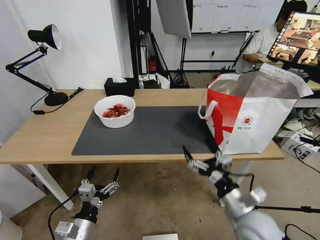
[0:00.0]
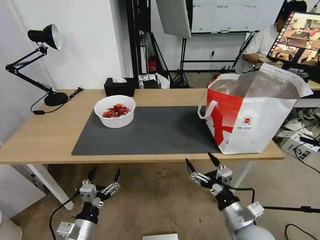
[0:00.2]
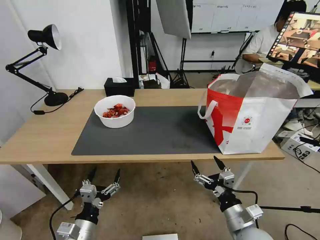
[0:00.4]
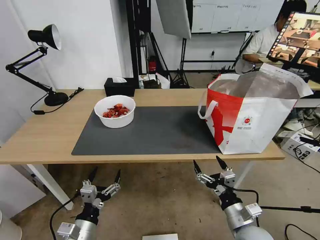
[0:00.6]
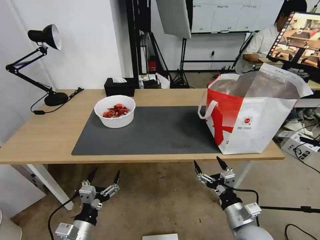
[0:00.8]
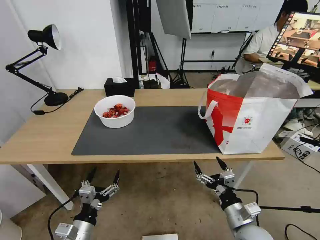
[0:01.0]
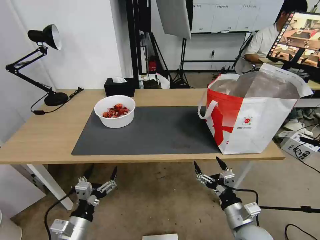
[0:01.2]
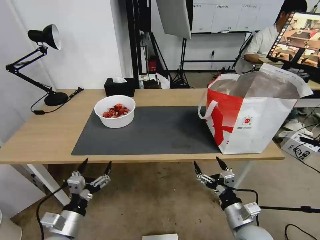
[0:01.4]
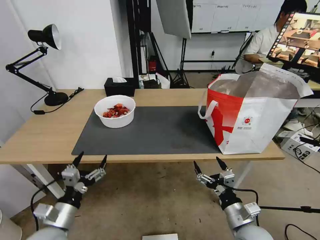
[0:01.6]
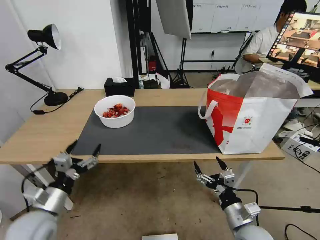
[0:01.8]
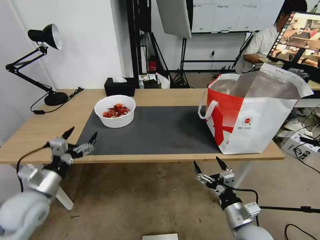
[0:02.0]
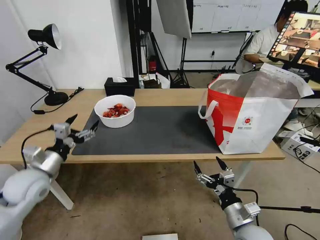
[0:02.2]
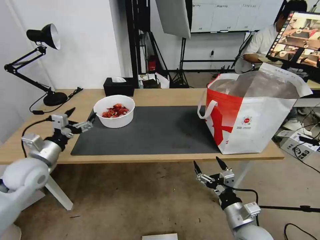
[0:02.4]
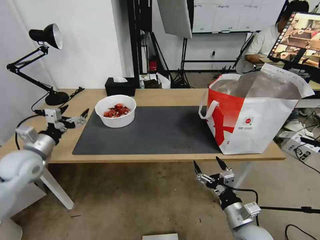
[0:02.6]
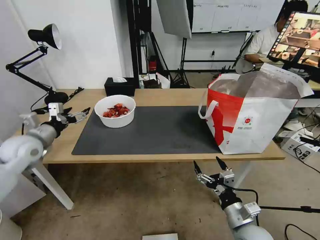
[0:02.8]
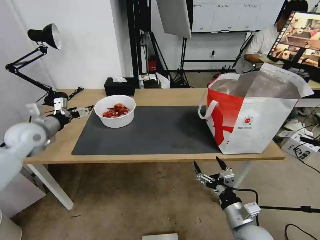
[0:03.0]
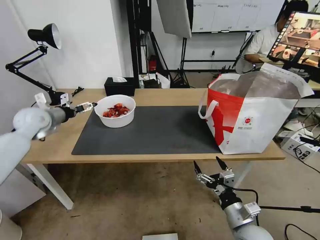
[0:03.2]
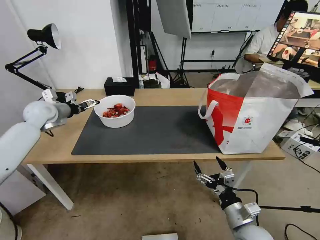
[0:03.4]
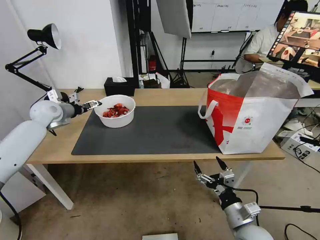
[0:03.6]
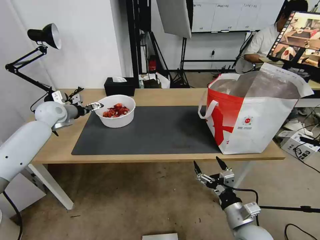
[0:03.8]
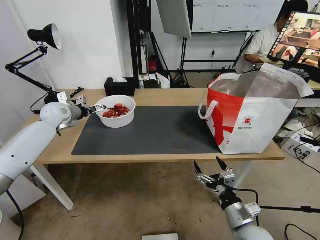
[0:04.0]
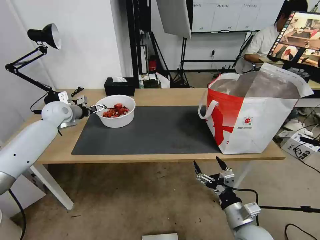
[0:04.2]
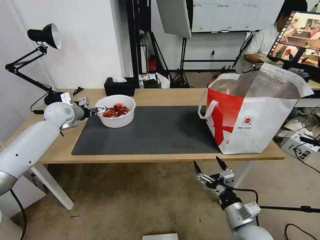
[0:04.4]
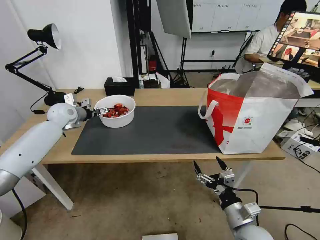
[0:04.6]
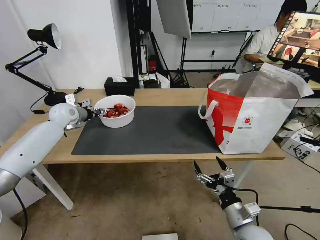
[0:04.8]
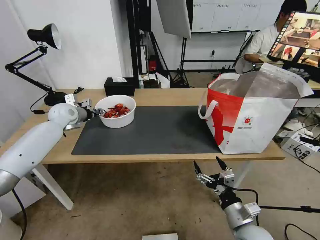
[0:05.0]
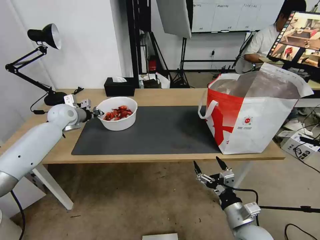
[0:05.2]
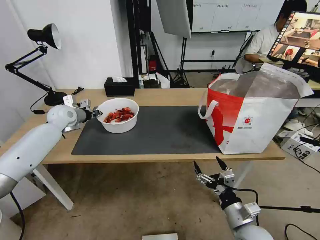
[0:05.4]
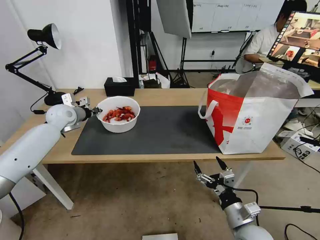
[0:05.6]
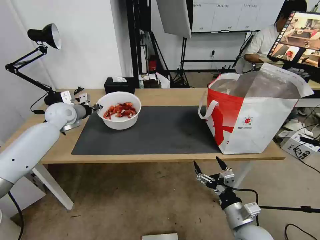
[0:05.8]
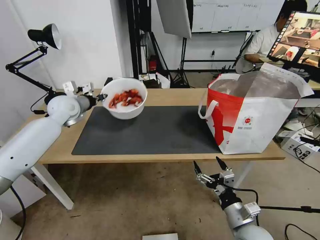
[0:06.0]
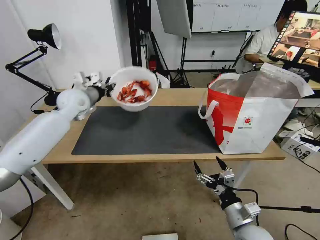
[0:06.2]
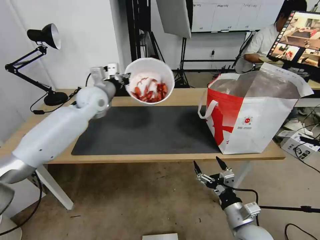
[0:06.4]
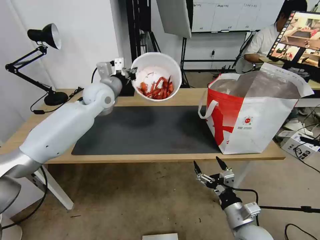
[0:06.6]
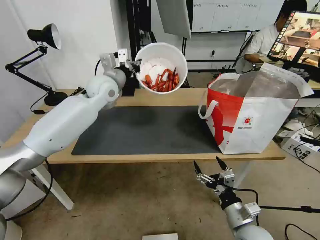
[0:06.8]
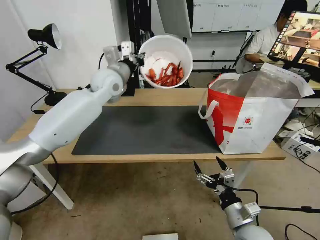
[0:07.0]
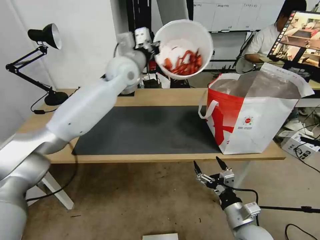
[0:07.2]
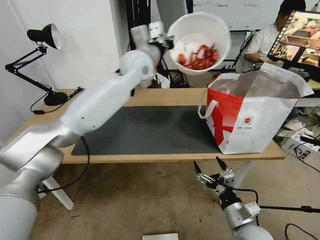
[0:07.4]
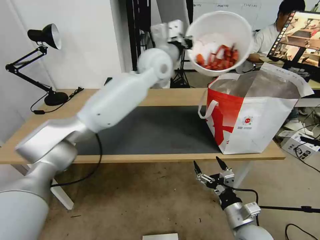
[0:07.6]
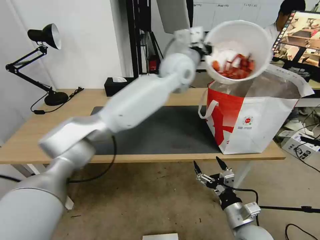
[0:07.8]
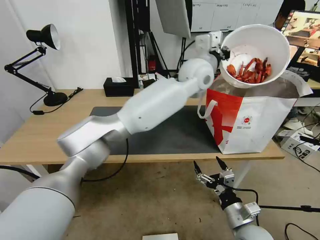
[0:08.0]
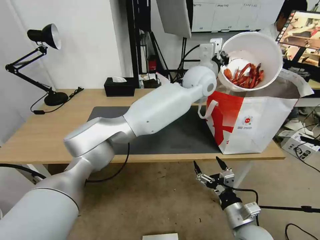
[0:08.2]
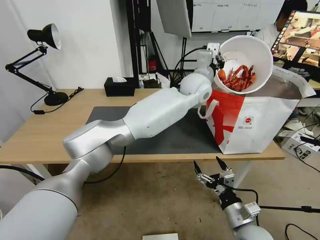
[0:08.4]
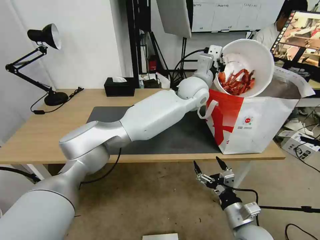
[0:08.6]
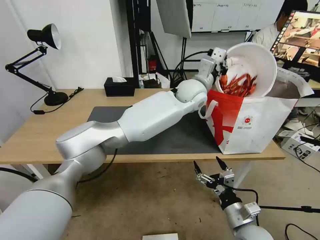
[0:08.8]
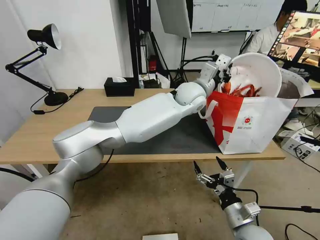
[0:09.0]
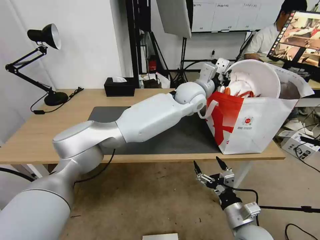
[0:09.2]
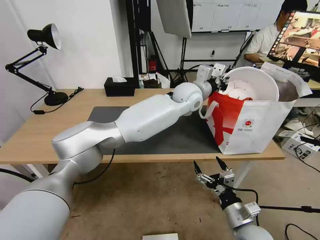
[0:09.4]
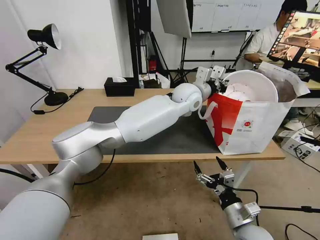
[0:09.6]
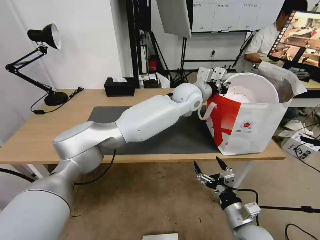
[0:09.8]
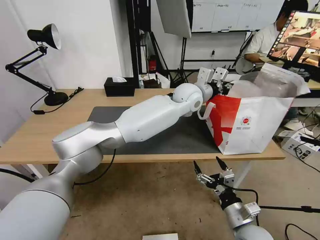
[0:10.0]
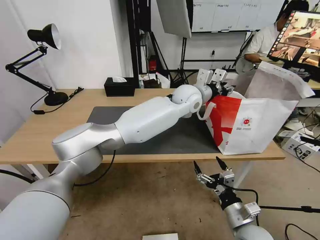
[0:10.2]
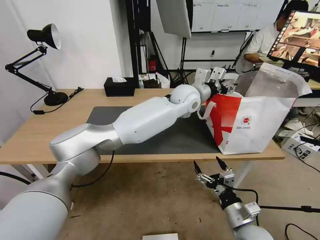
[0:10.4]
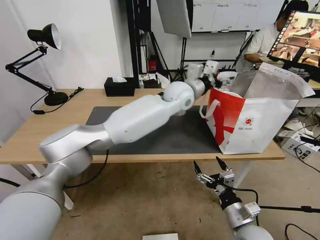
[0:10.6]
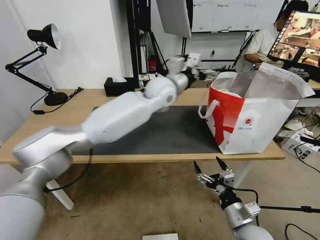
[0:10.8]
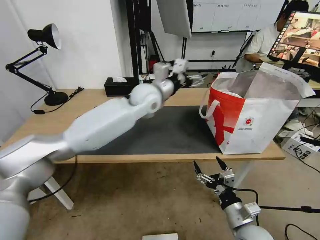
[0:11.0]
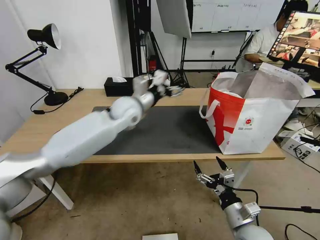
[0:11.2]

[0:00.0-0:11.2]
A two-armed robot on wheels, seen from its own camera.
Task of the whole recording: Pick up the trash from the table and place it into the takeout bag.
0:00.0 to 0:01.6: The left gripper goes approximately 5 cm to the left; the right gripper moves downward, approximately 5 cm.
0:01.6 to 0:03.2: The left gripper moves forward and upward, approximately 35 cm.
0:03.2 to 0:04.8: The left gripper travels forward by approximately 5 cm, and closes.
0:04.8 to 0:06.4: The left gripper is displaced to the right and upward by roughly 15 cm, and closes its fingers.
0:06.4 to 0:08.0: The left gripper moves to the right, some 35 cm.
0:08.0 to 0:09.6: The left gripper moves downward, some 10 cm.
0:09.6 to 0:11.2: The left gripper moves to the left, some 20 cm, and opens its fingers.

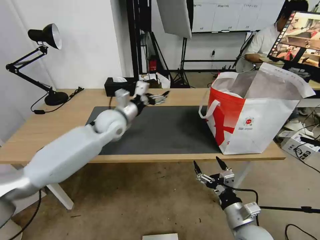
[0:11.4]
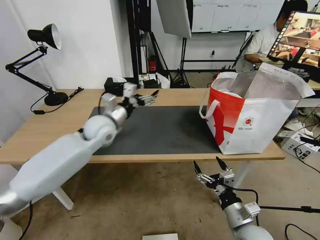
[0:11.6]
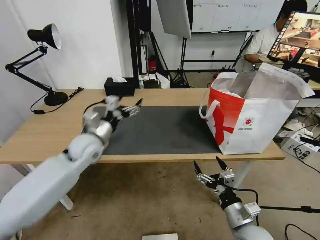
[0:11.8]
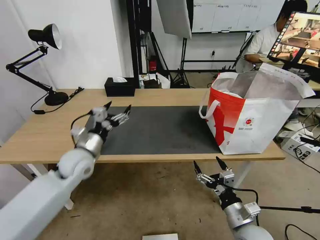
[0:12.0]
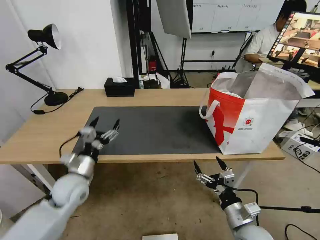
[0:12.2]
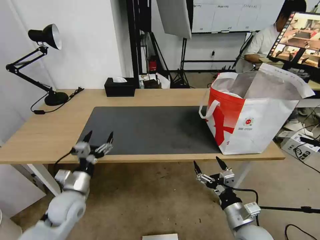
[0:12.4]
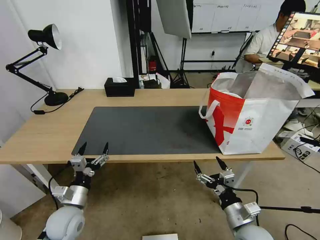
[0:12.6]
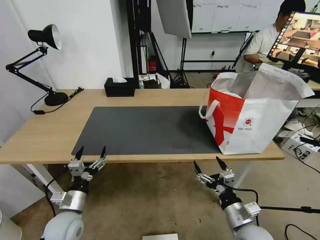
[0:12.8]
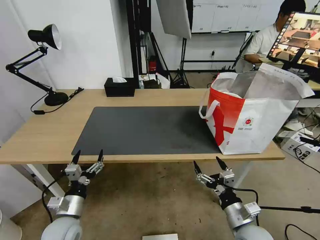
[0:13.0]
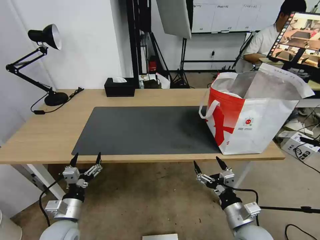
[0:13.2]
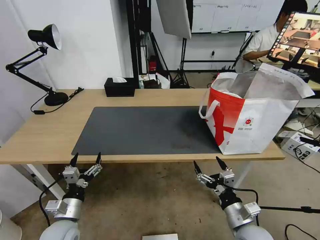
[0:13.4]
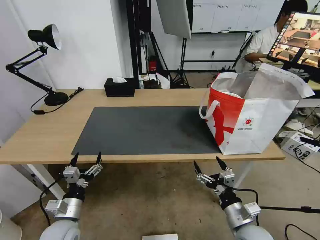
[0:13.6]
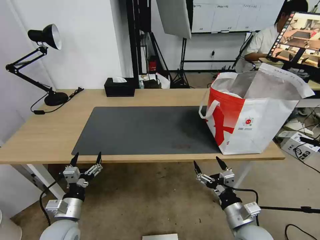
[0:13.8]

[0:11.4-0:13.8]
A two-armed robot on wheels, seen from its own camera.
Task of the whole recording: Pick up the trash from the table and place it into the takeout bag.
0:11.4 to 0:12.6: The left gripper shifts roughly 35 cm backward, downward and to the left.
0:12.6 to 0:13.8: The grippers make only small movements.
